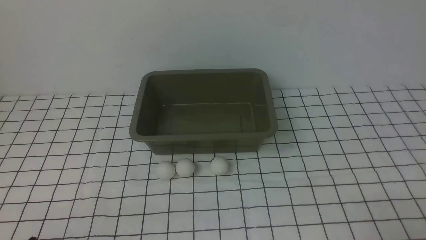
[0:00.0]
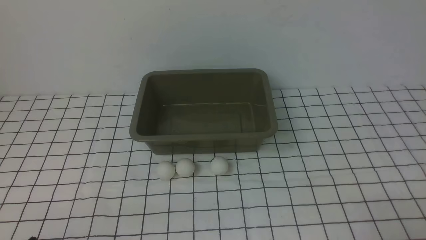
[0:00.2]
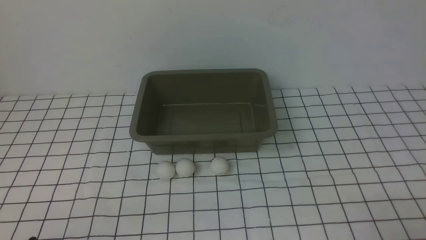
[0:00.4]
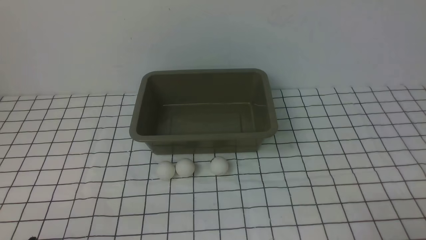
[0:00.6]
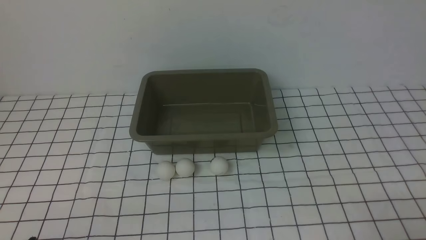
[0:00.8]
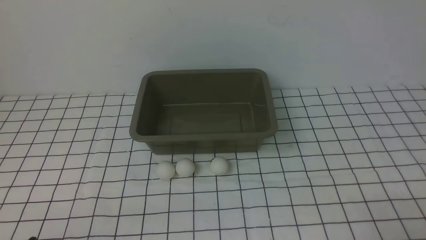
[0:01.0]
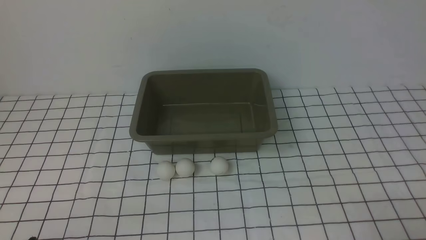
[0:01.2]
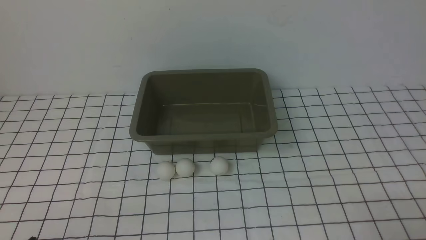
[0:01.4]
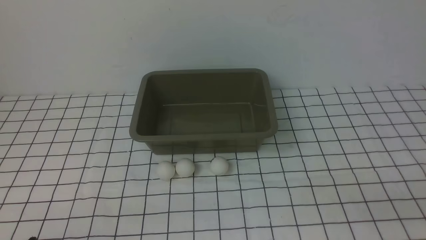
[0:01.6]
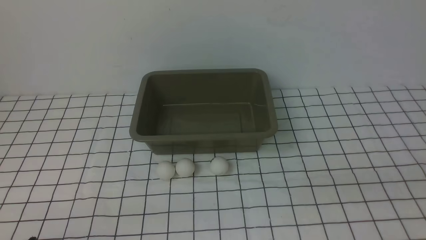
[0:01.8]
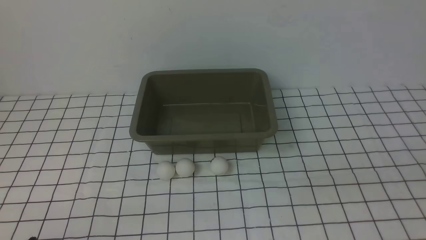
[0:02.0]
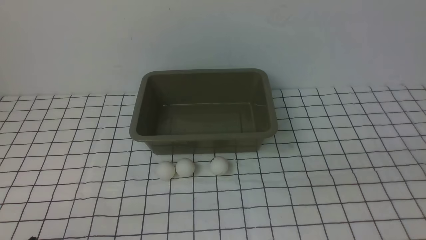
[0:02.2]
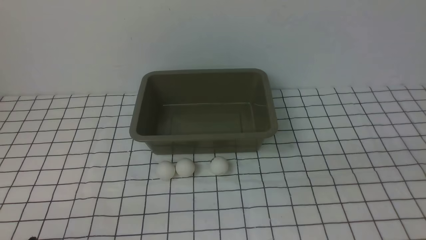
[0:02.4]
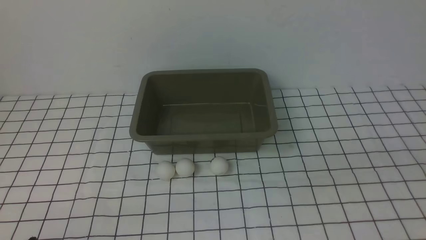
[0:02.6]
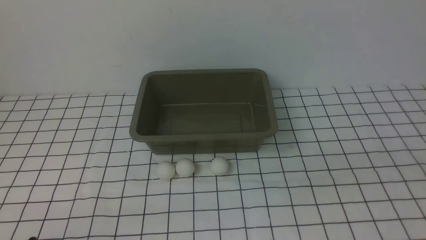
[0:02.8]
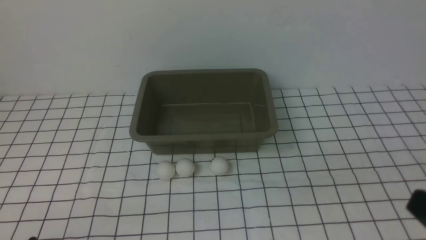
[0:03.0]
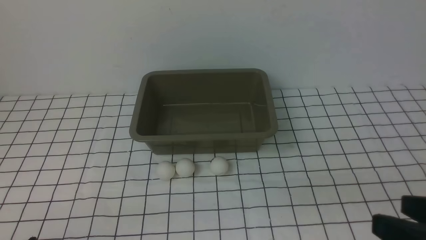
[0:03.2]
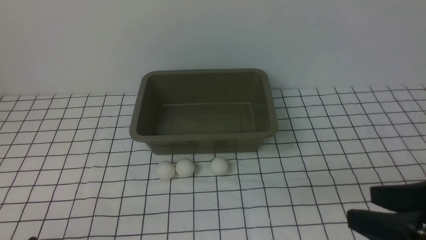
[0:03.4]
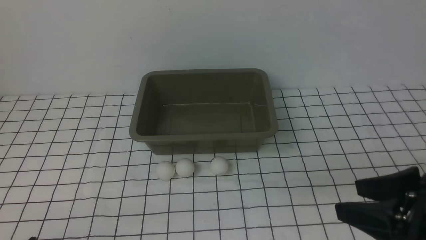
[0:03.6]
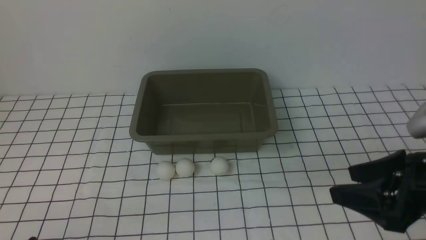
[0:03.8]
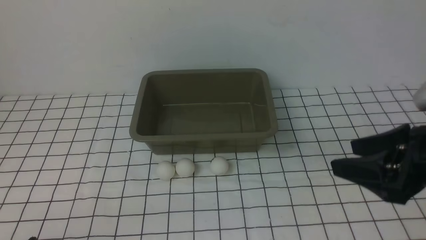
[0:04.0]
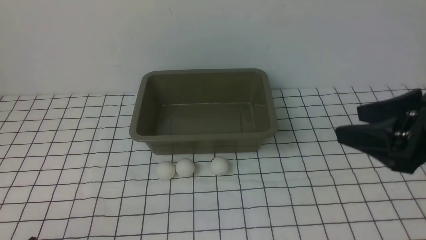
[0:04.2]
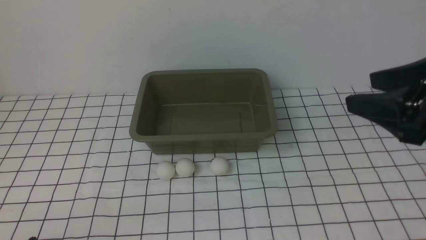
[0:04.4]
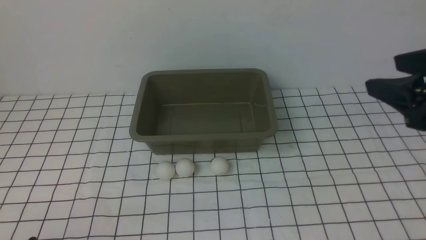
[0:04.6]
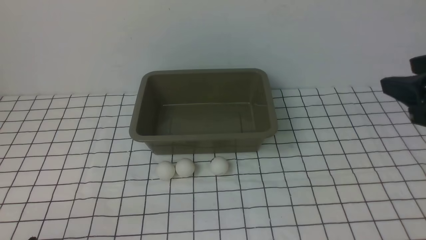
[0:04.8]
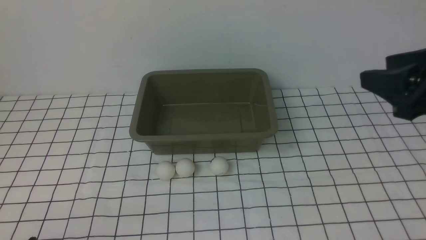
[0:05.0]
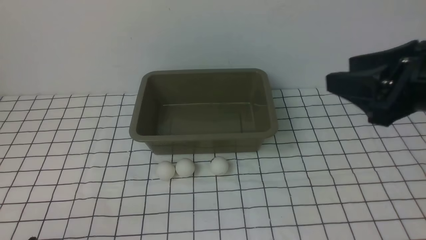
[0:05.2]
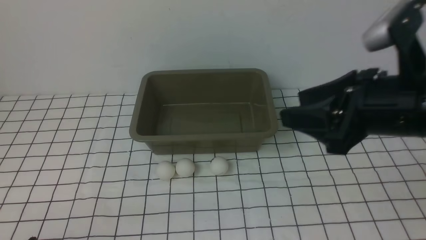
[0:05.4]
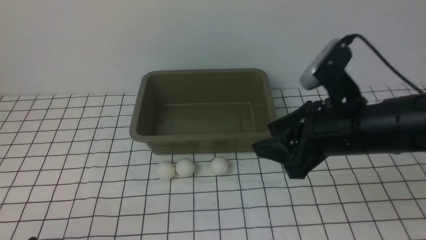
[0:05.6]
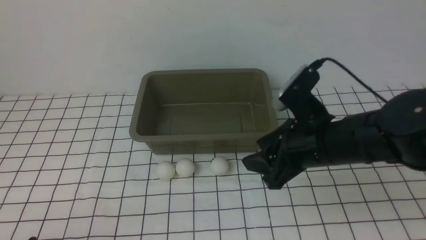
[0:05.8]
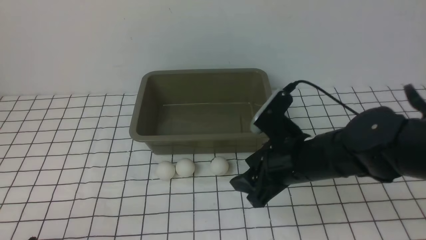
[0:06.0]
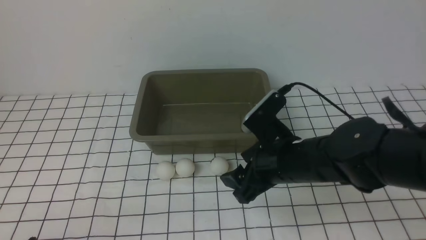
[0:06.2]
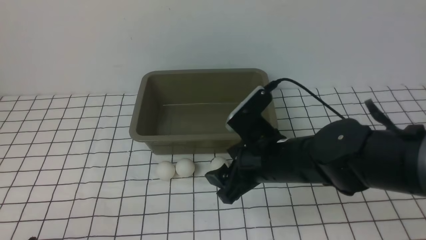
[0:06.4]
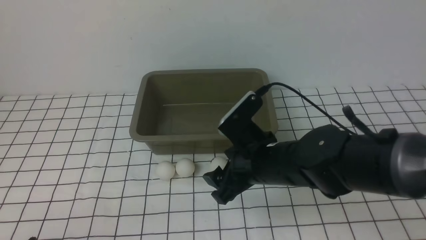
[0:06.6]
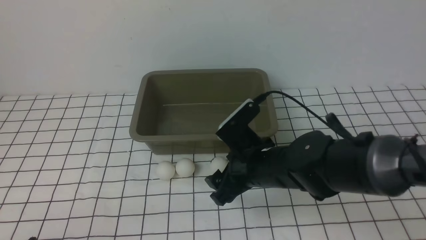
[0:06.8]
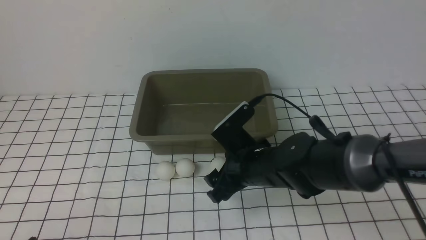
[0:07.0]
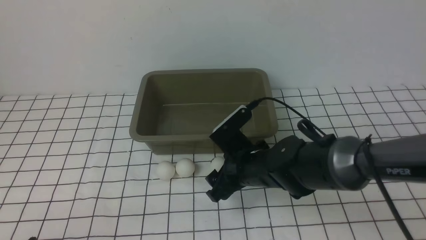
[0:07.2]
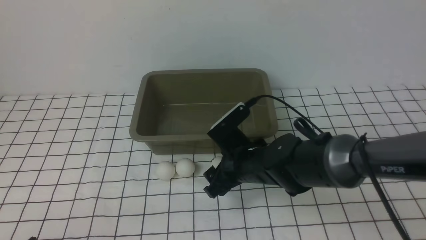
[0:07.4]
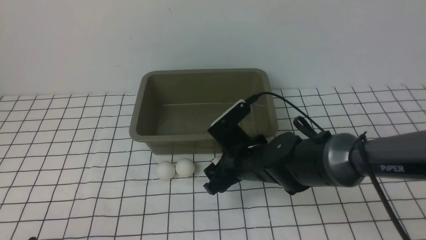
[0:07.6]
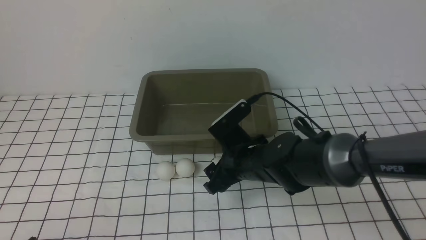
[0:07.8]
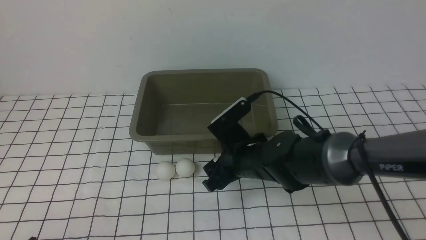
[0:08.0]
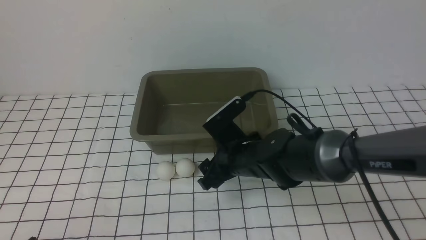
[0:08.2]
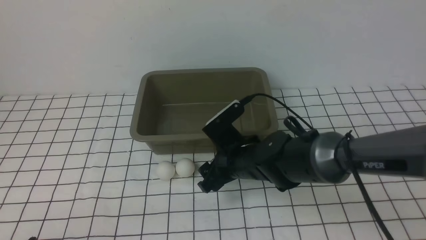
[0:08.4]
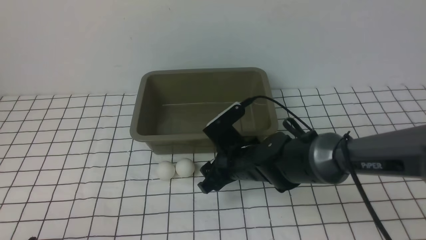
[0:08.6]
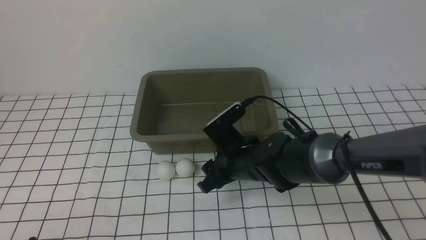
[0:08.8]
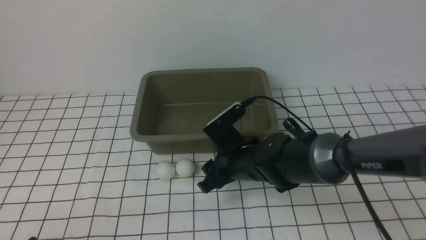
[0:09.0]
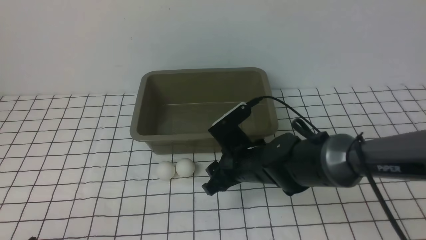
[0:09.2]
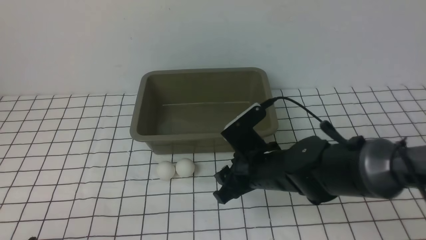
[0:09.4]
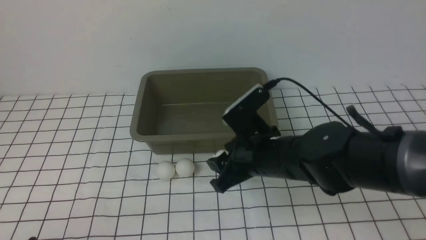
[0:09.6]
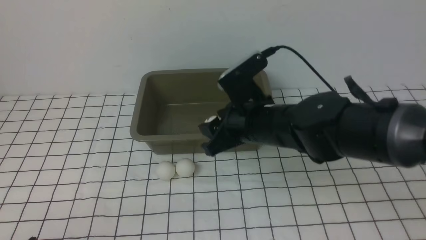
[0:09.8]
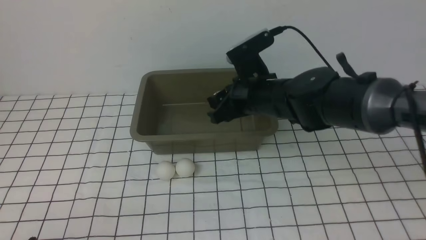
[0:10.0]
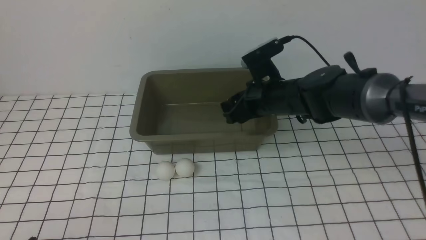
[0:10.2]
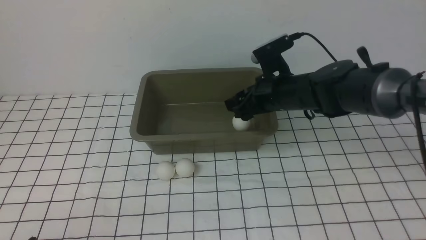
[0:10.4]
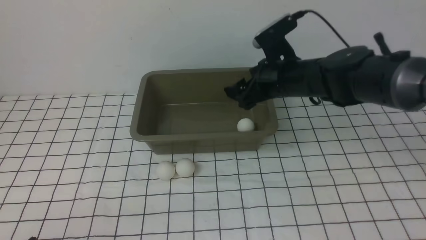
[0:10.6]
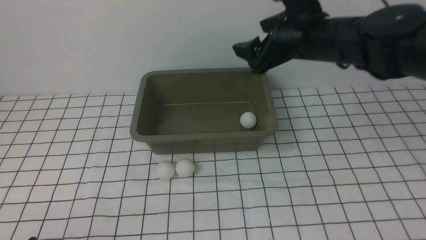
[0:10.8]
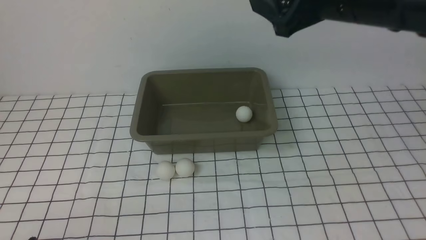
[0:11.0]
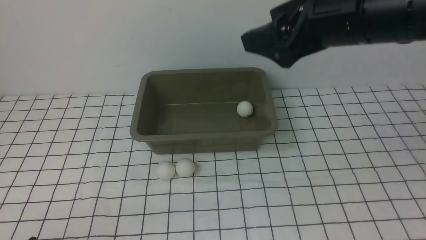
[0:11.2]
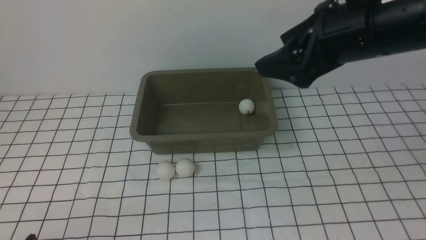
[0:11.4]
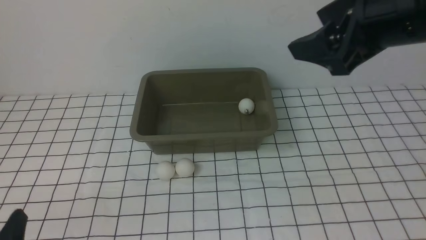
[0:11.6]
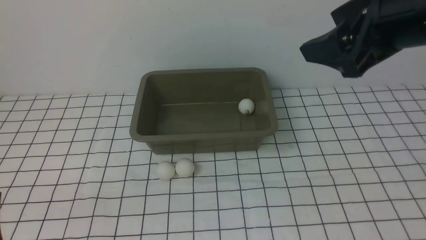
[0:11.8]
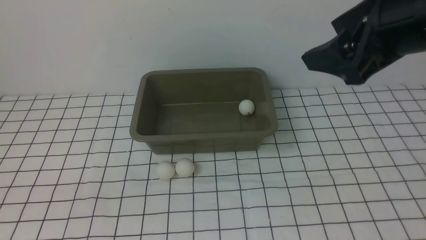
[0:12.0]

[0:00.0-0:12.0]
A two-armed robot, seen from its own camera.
Step, 0:00.0 to 0:09.2: use the right arm to clamp the table tennis ball closest to it.
Step, 0:09.6 to 0:10.6: use the right arm to put the table tennis ball into the box.
0:03.0 to 0:04.4: The right gripper heads forward, covering about 15 cm.
0:04.4 to 0:06.0: The right gripper is displaced to the left and downward by some 20 cm.
0:06.0 to 0:07.6: The right gripper shifts some 10 cm downward and to the left, and opens its fingers.
0:07.6 to 0:09.0: The right gripper closes.
0:09.0 to 0:10.4: The right gripper is displaced upward, forward and to the right by approximately 15 cm, and opens its fingers.
0:10.4 to 0:12.0: The left gripper heads upward, covering roughly 5 cm. The right gripper goes approximately 25 cm upward, backward and to the right.

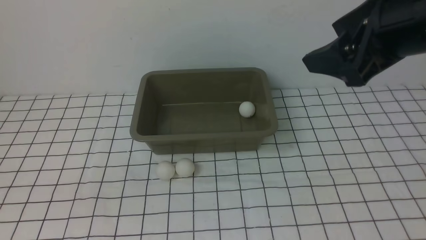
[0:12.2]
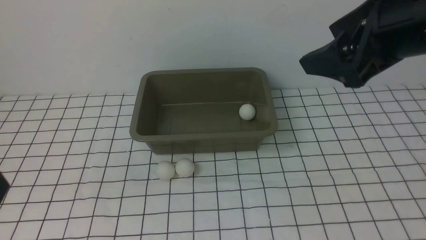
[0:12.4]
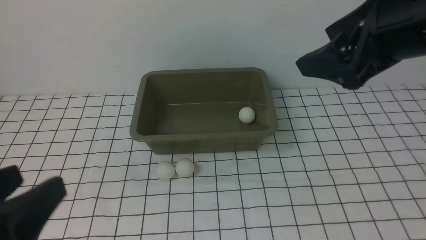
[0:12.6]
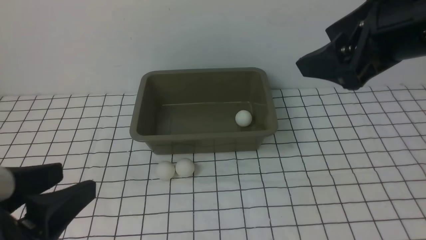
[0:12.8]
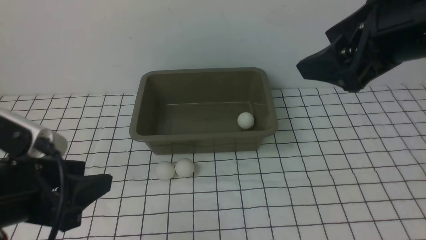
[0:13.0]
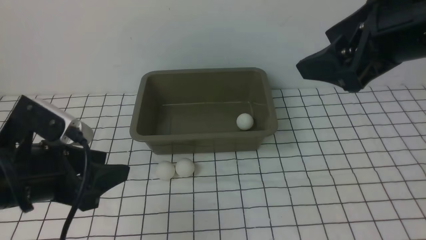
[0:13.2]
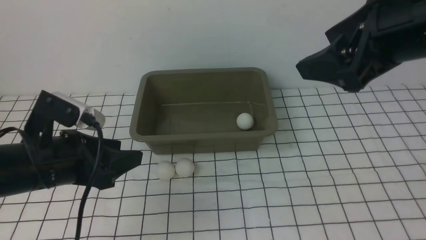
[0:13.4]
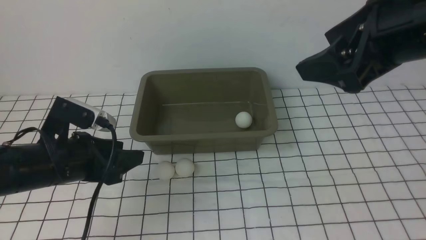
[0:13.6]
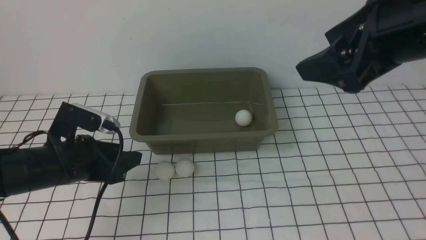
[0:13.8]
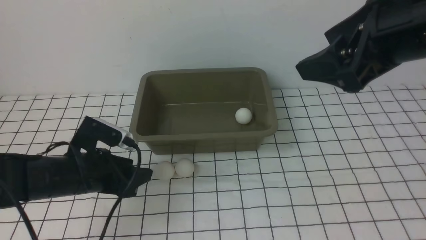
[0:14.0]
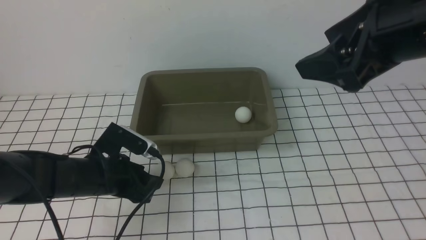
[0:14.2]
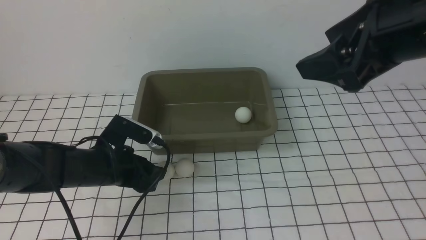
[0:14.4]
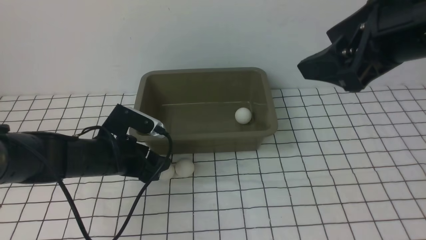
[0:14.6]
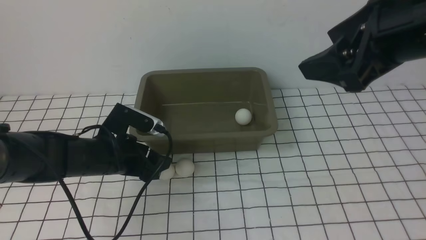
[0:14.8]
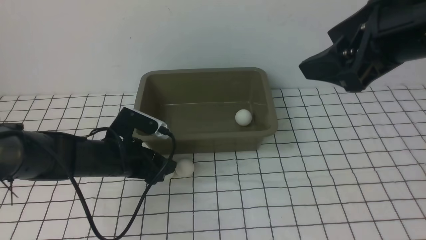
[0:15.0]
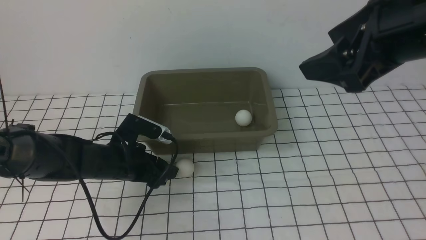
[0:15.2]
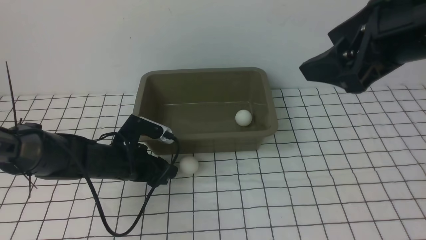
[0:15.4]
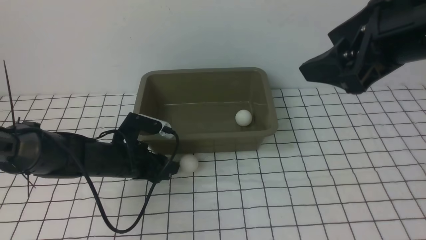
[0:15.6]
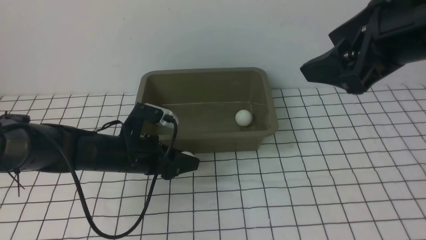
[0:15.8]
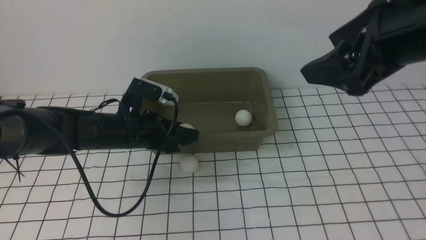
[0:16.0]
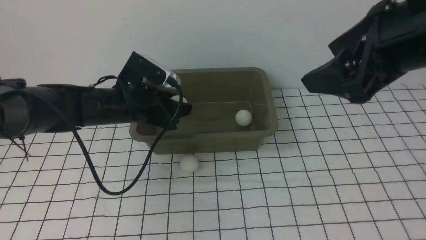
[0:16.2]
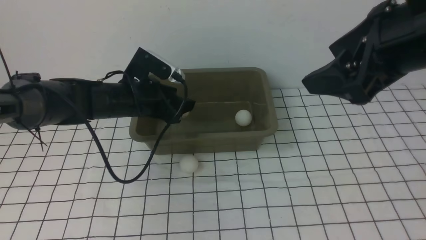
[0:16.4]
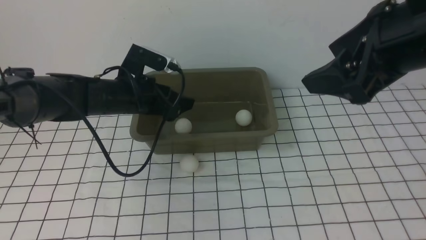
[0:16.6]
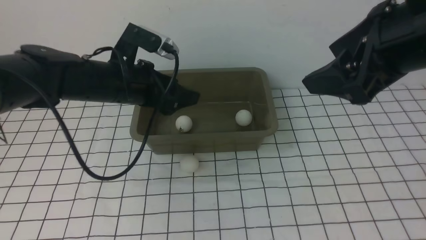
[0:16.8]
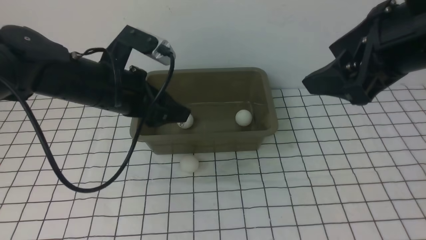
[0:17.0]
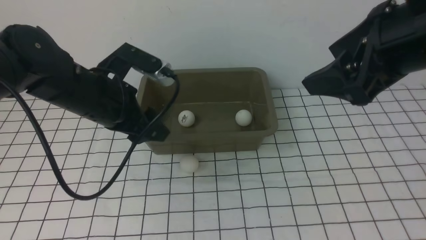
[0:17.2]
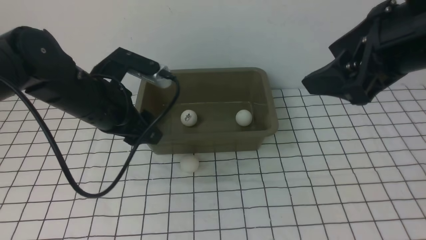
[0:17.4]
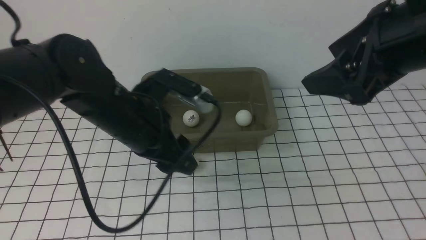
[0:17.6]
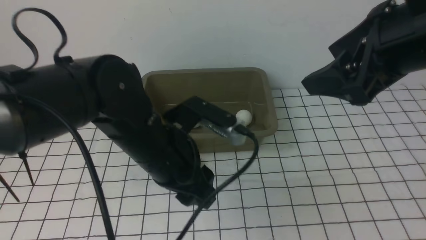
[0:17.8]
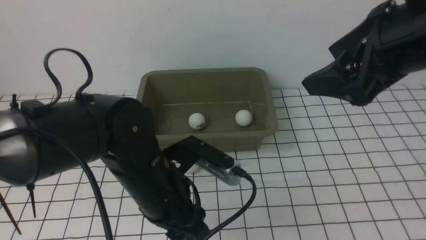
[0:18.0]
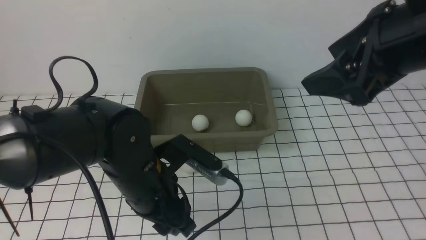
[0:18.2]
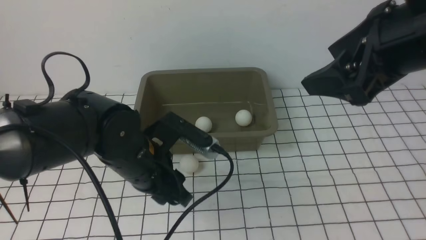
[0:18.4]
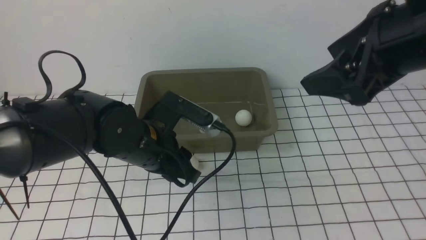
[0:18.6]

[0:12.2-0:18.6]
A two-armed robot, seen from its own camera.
Step, 0:12.2 to 0:15.8: use the left arm to clamp the table tennis ball closest to it.
Step, 0:16.0 to 0:16.6: use the left arm to put the table tennis ball into the box.
0:12.2 to 0:13.8: The left gripper heads forward, covering approximately 20 cm, and closes up.
0:13.8 to 0:15.4: The left gripper travels downward and forward by some 10 cm, and opens and closes again.
0:15.4 to 0:17.0: The left gripper shifts roughly 15 cm upward, and closes and opens again.
0:17.0 to 0:18.6: The left gripper heads to the right, backward and downward, covering roughly 10 cm, and closes its fingers.
